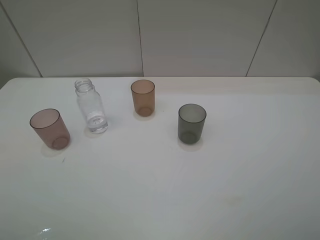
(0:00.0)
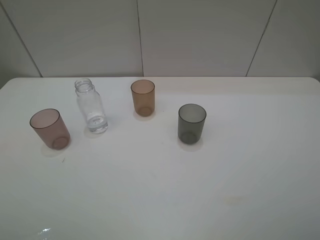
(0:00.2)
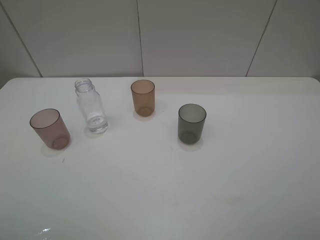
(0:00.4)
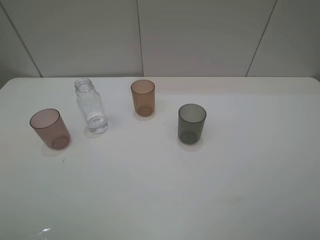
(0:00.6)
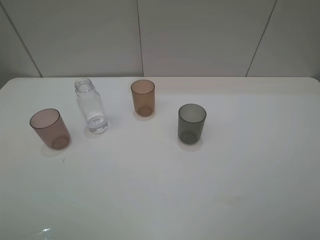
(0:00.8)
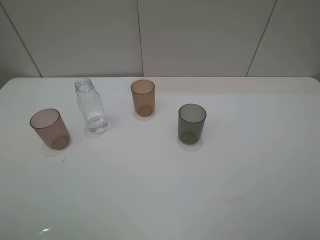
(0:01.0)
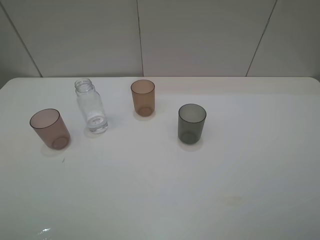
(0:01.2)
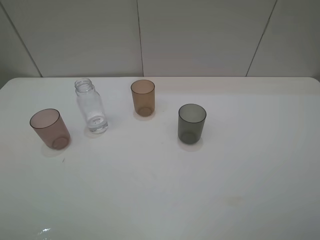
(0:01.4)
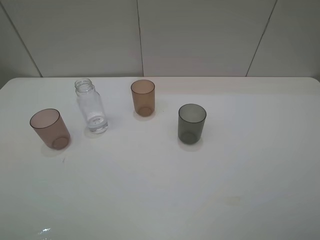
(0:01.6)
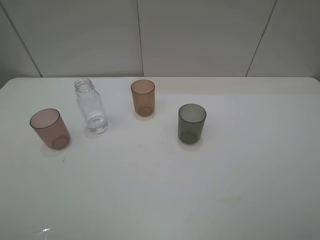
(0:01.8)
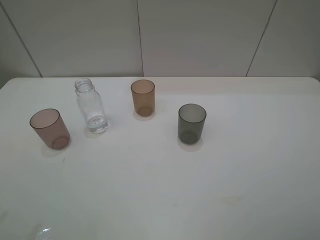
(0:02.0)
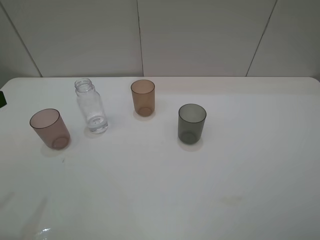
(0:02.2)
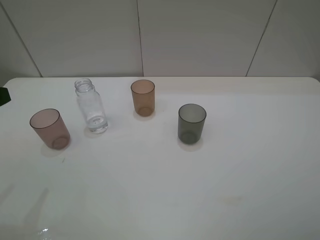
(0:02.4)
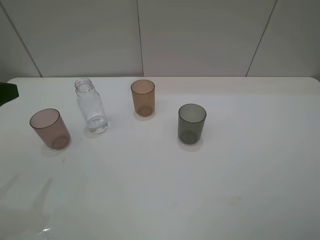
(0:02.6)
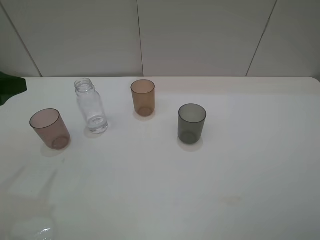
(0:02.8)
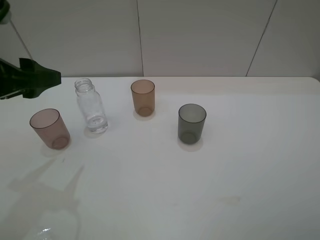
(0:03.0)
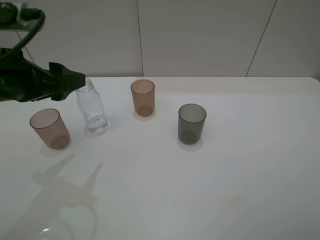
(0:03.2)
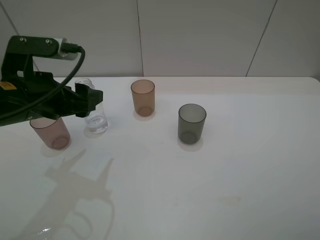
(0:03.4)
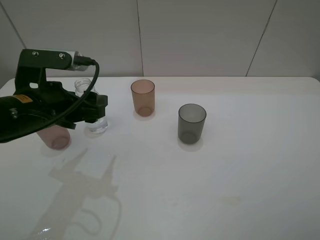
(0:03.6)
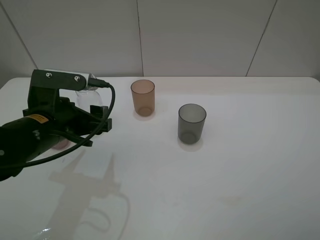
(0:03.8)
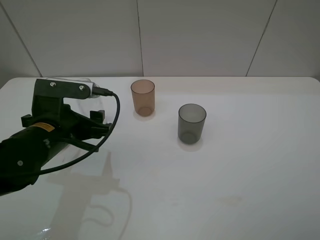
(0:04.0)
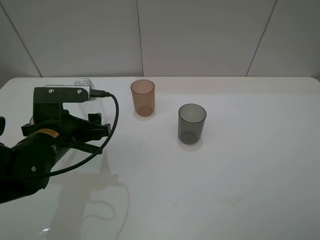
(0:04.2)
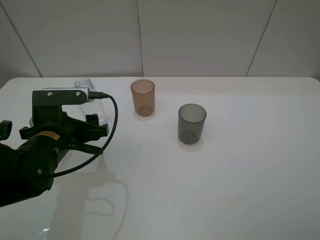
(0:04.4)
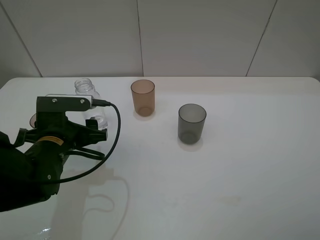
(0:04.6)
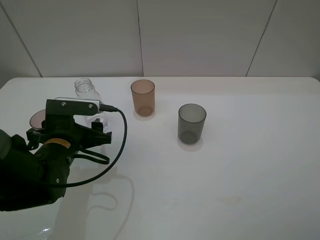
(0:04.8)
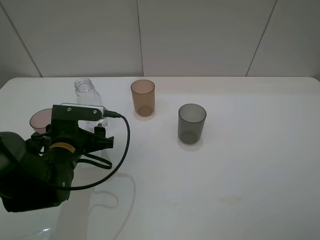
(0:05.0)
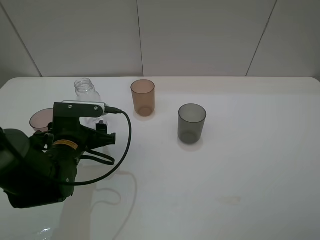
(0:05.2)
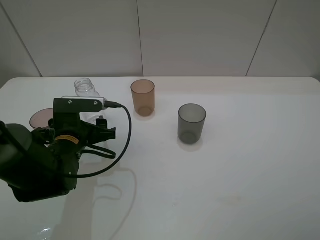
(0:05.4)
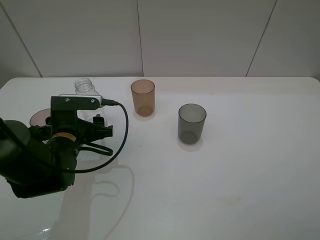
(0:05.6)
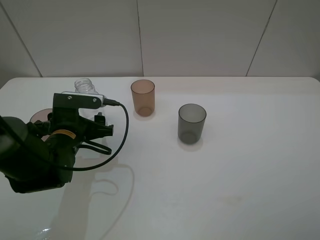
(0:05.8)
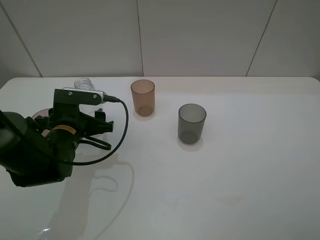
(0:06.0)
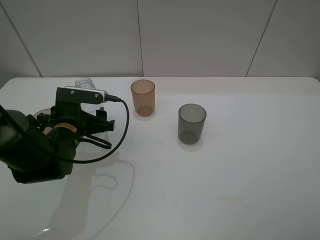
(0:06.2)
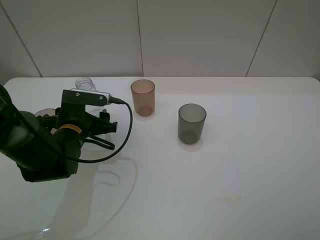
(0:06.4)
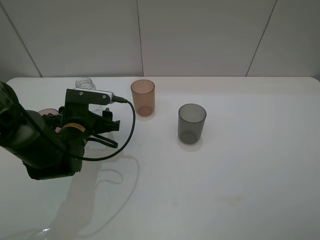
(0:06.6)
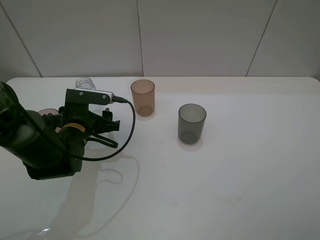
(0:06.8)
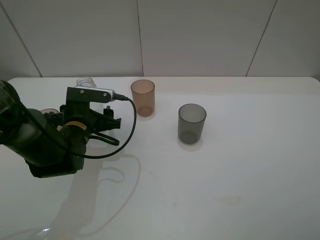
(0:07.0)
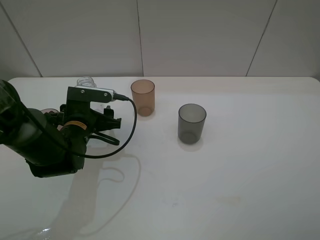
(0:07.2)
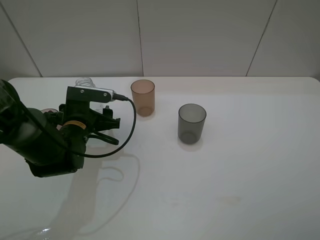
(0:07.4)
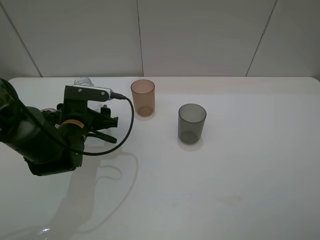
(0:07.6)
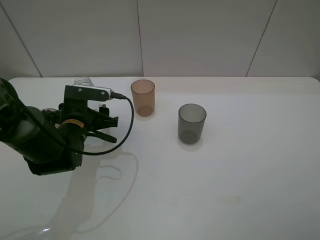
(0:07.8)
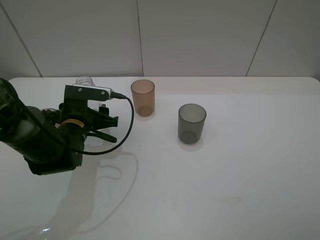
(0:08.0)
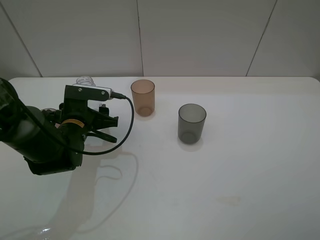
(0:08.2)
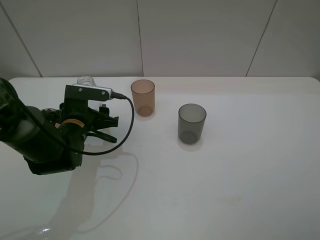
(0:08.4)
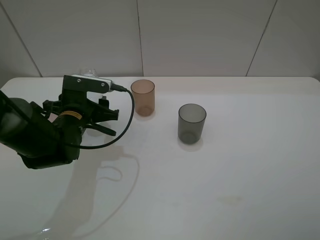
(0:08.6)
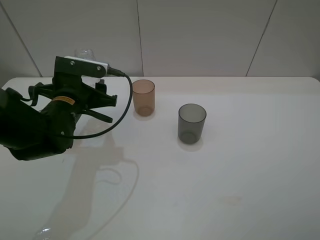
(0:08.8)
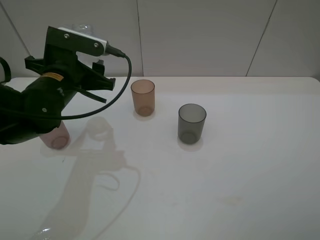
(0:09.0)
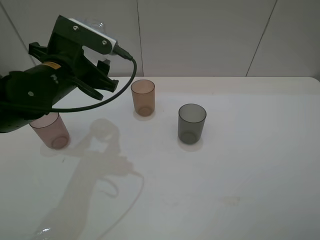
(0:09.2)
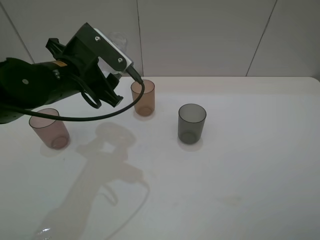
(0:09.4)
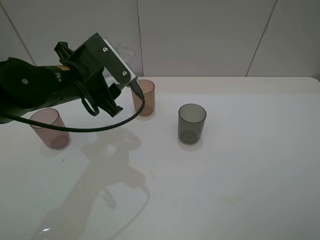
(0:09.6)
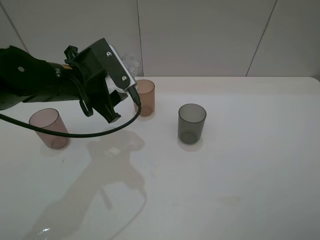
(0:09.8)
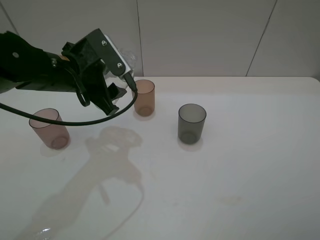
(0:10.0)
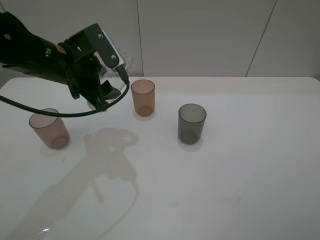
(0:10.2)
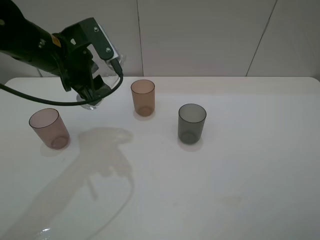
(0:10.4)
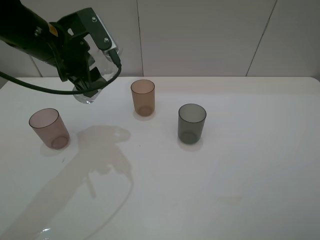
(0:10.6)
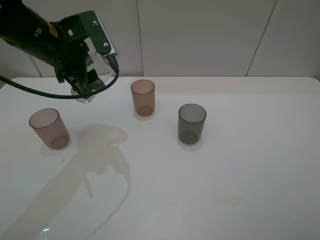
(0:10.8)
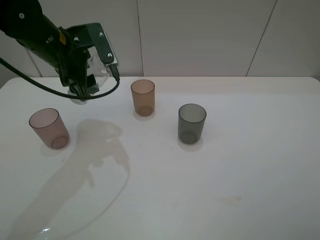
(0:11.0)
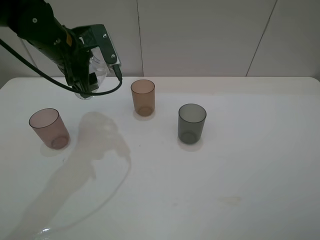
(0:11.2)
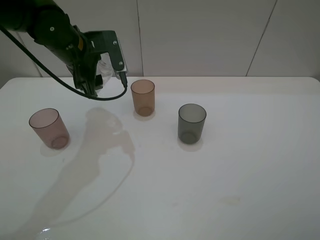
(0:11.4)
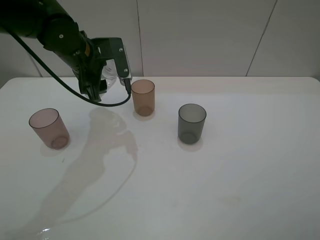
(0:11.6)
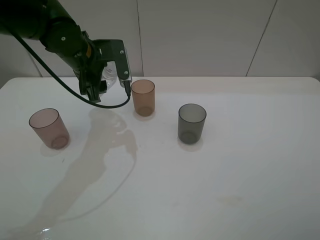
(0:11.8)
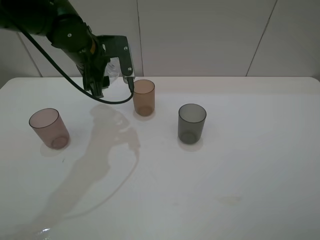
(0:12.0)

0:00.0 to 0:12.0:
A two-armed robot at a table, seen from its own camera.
Task of the whole recording: pick up the bottle filled with water and pour water into the middle cup of the three cups.
Step, 0:00.0 to 0:05.6: Grasp the transparent bottle with the left gripper.
0:01.6 to 0:03.0: The left gripper is displaced forward by approximately 20 cm.
0:03.0 to 0:04.4: The left gripper is displaced downward and to the right by some 15 cm.
0:04.4 to 0:06.0: The left gripper ends up roughly 5 cm from where it was.
0:06.0 to 0:07.6: There are only small adjustments of the grippers.
0:07.6 to 0:09.0: The left gripper goes some 10 cm upward, and closes its fingers.
0:09.0 to 0:10.4: The left gripper changes place by approximately 5 cm.
0:10.4 to 0:12.0: The left gripper travels forward by roughly 5 cm.

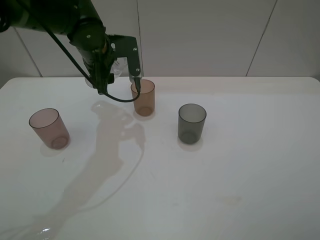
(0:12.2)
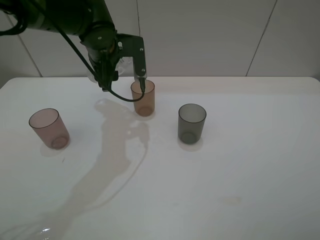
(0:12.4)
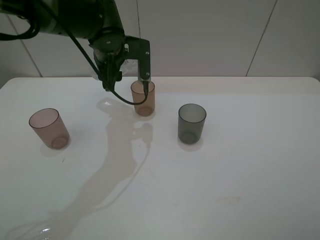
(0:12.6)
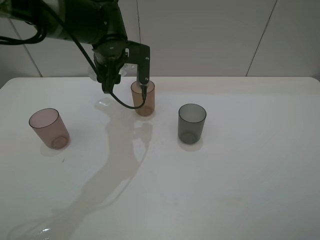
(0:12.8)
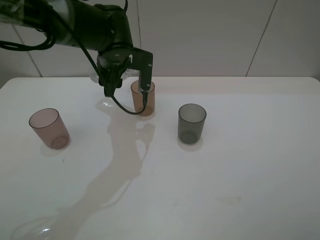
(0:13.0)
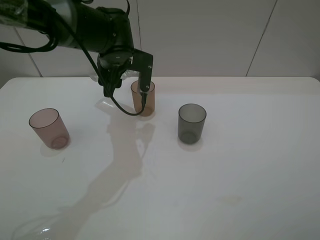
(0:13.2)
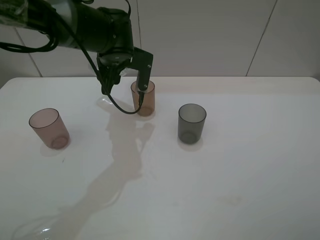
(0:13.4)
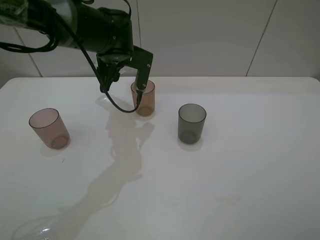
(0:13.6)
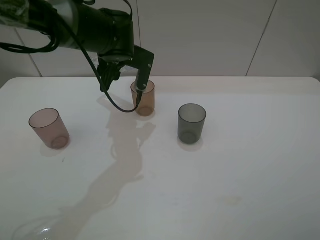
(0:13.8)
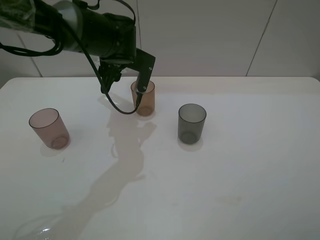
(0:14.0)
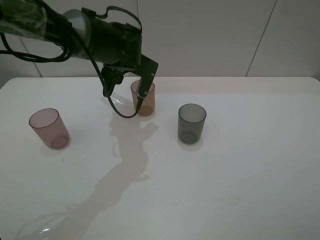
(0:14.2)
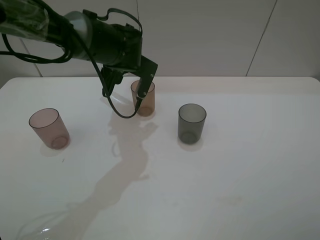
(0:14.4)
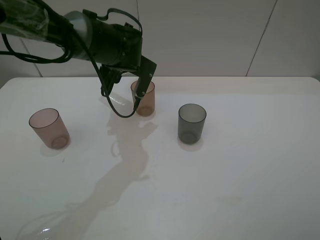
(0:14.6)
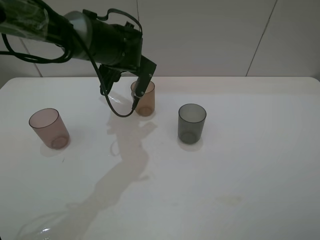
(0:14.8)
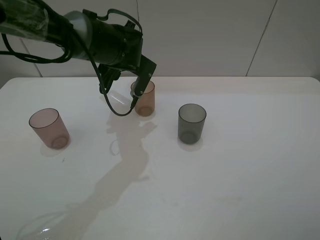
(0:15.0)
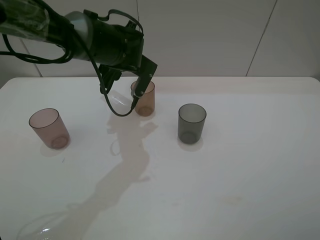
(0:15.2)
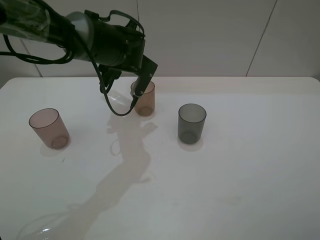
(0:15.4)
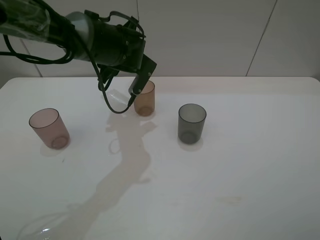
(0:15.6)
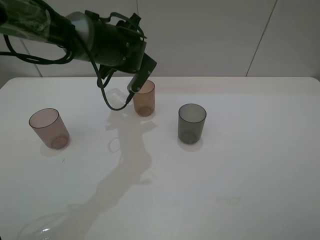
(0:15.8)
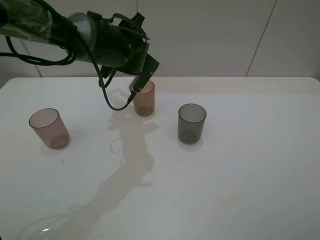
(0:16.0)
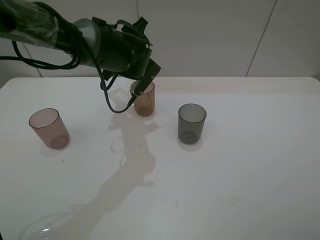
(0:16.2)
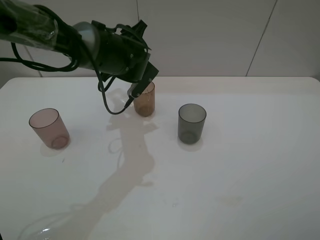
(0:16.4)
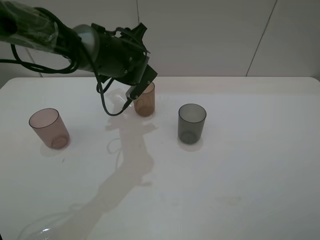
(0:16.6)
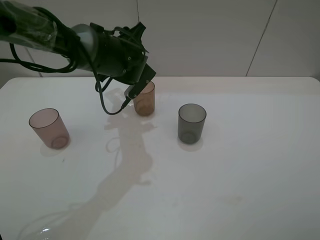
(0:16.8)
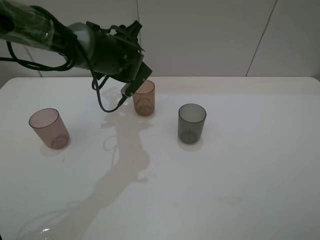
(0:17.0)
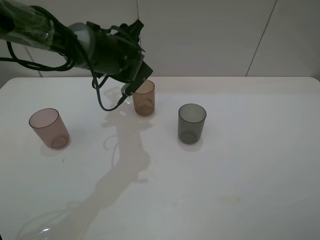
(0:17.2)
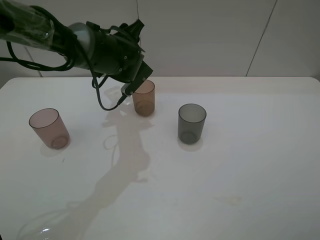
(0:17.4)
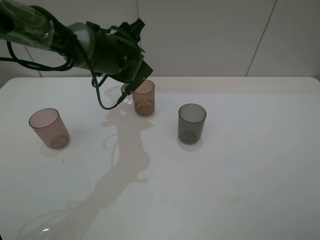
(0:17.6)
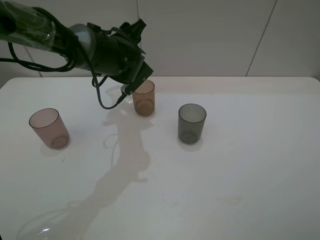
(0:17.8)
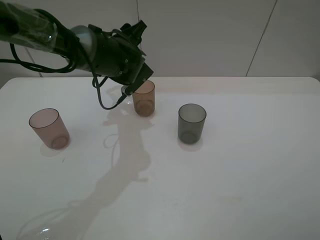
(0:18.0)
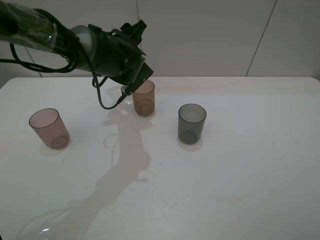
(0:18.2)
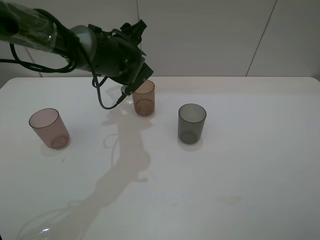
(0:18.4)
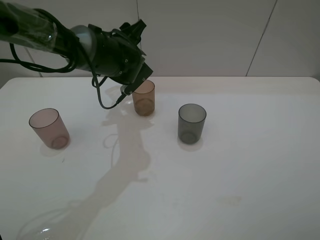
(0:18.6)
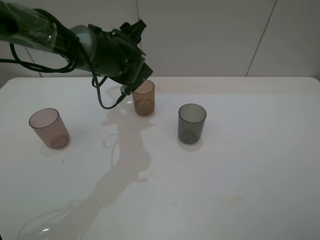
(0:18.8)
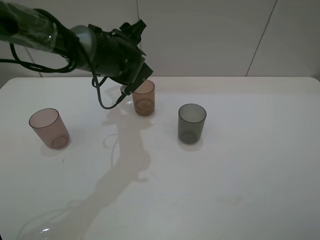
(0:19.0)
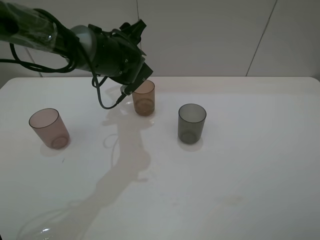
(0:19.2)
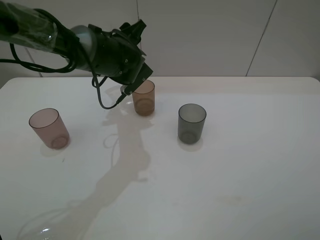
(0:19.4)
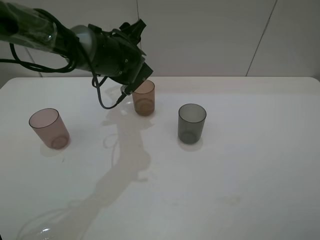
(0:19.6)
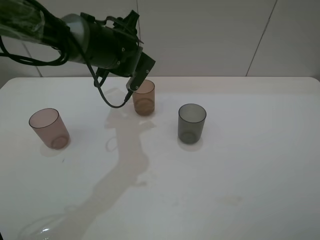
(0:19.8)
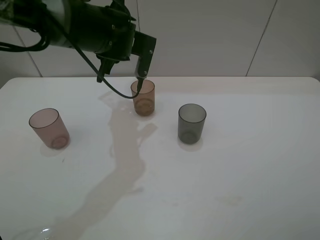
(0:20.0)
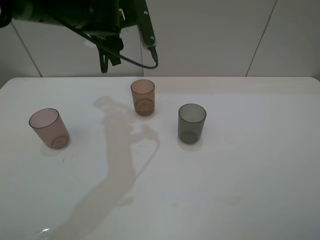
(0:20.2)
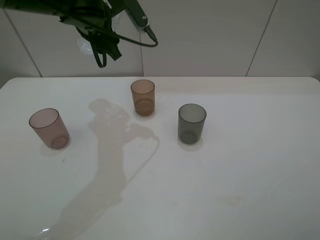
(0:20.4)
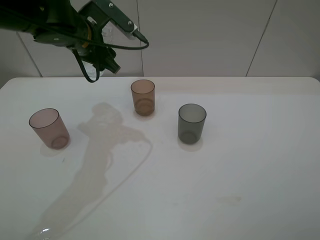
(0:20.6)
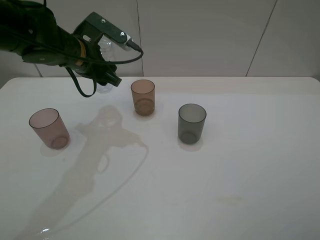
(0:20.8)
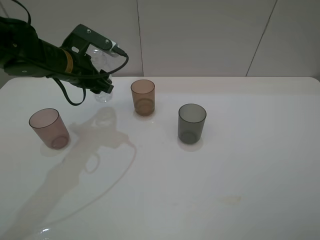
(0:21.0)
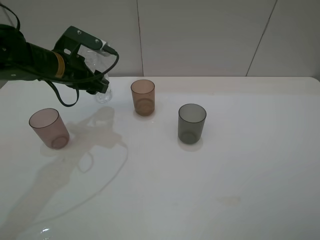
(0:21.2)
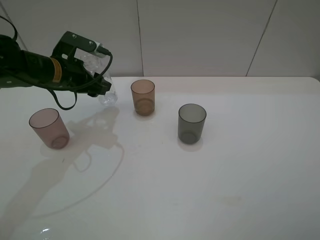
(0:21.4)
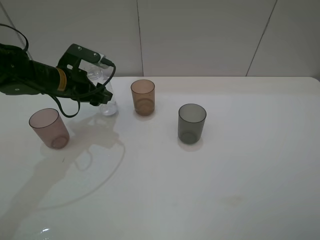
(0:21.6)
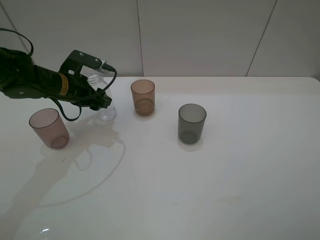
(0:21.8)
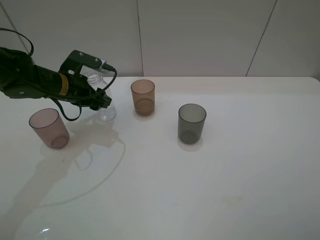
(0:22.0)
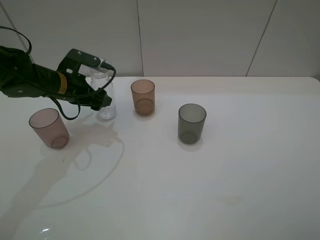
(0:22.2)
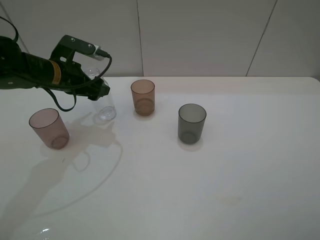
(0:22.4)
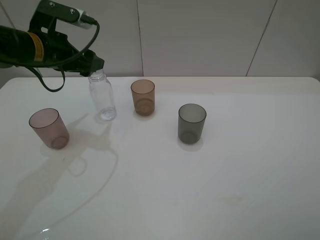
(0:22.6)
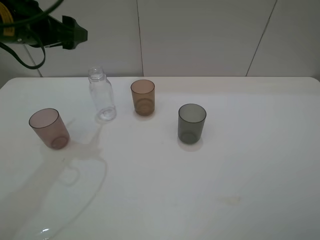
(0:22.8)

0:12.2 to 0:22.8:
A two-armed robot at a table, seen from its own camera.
Task of the whole recording: pick up the bottle filled with water and pour water into the middle cup of the three cups.
Step, 0:12.2 to 0:14.6: Pour water from transparent bottle to brown cup with the left gripper.
Step, 0:14.8 to 0:22.8: Place the transparent bottle with the left gripper.
0:13.8 to 0:15.2: The grippers make only small movements.
0:15.2 to 0:16.8: The grippers stay close to where they were, moving slightly.
0:16.8 to 0:19.8: The grippers move only a little.
0:19.8 to 0:21.2: The left gripper shifts roughly 10 cm to the left.
0:21.2 to 0:22.8: The left gripper travels upward by some 10 cm, and opens up.
